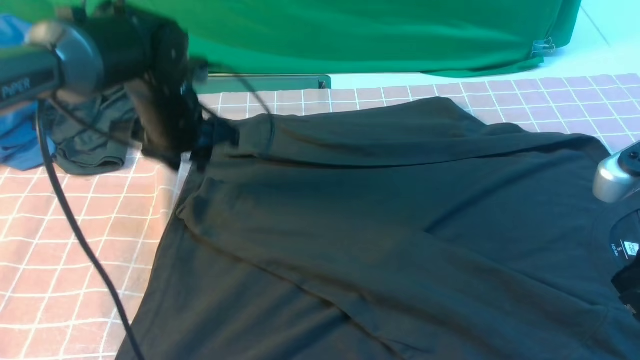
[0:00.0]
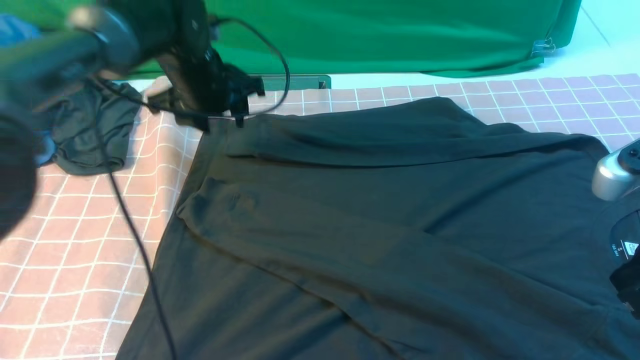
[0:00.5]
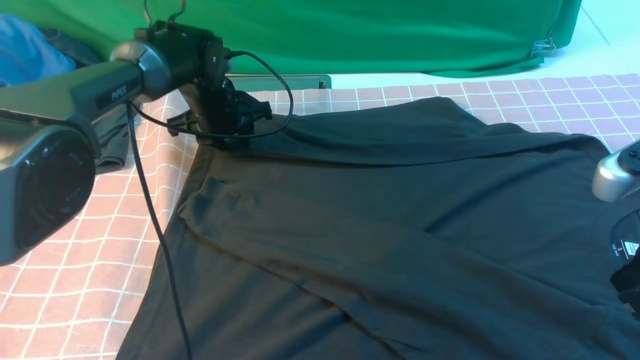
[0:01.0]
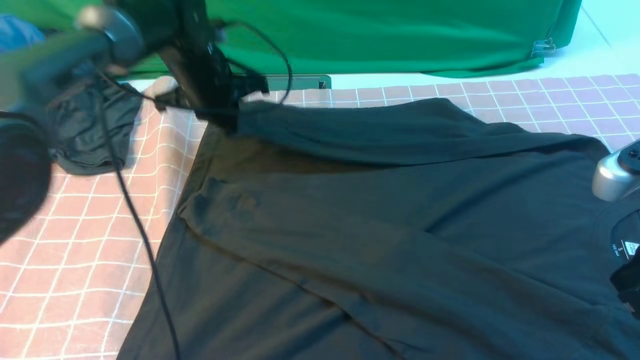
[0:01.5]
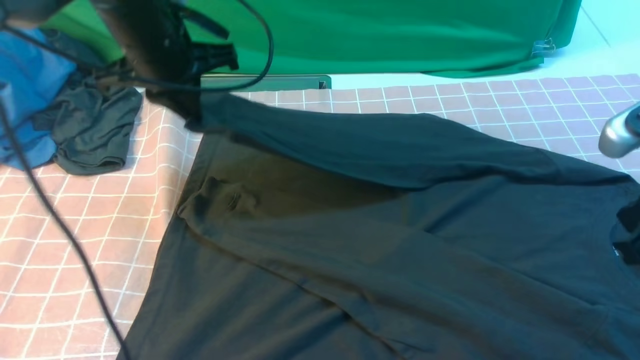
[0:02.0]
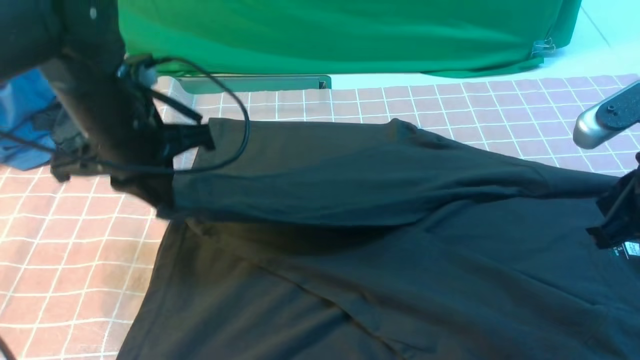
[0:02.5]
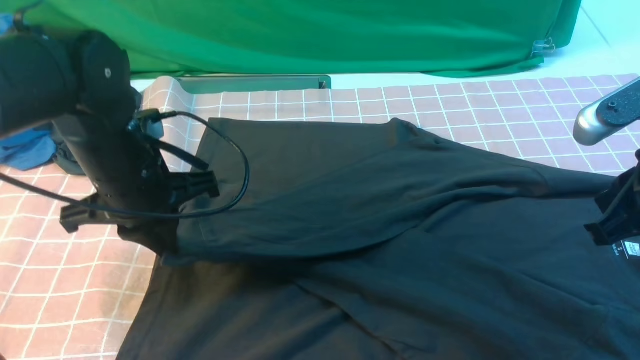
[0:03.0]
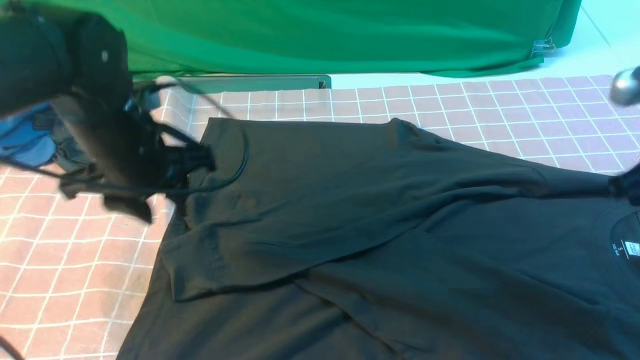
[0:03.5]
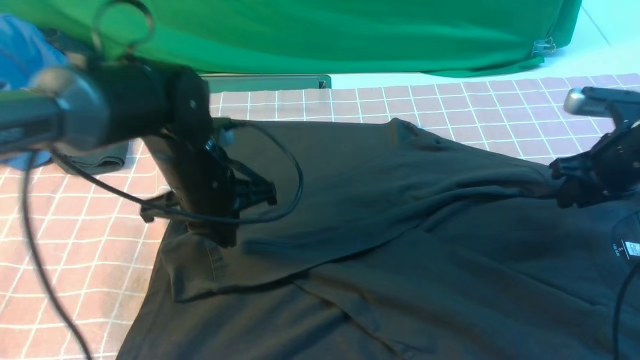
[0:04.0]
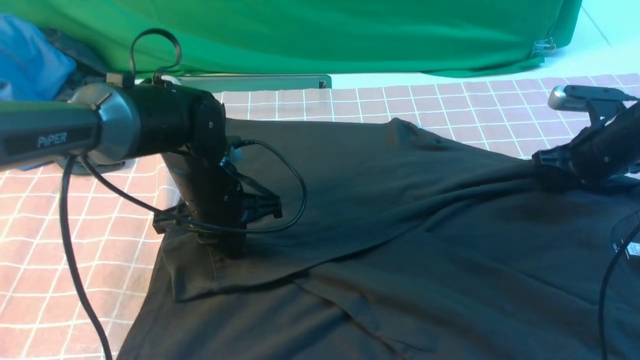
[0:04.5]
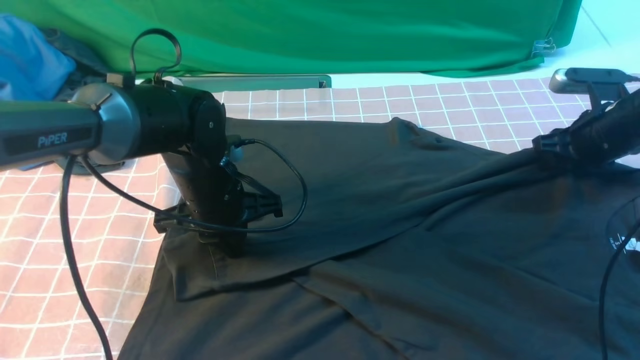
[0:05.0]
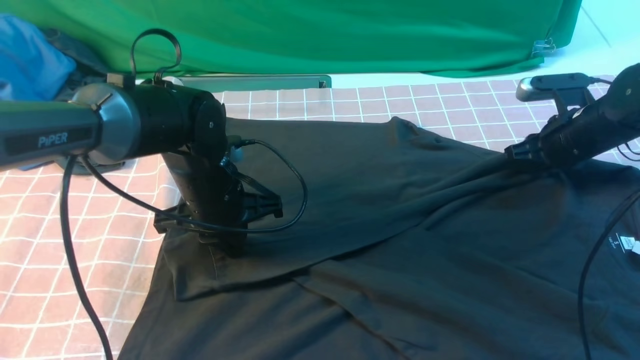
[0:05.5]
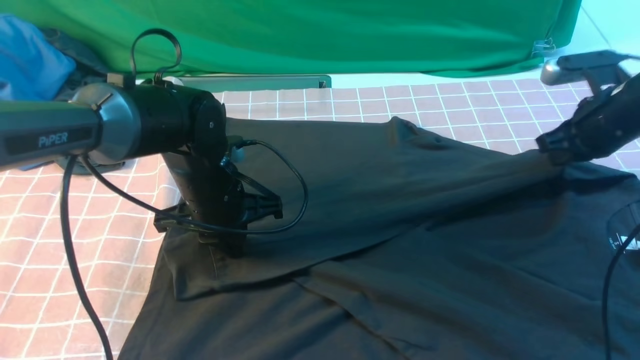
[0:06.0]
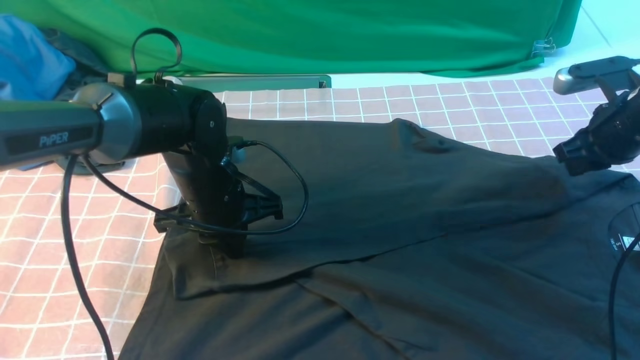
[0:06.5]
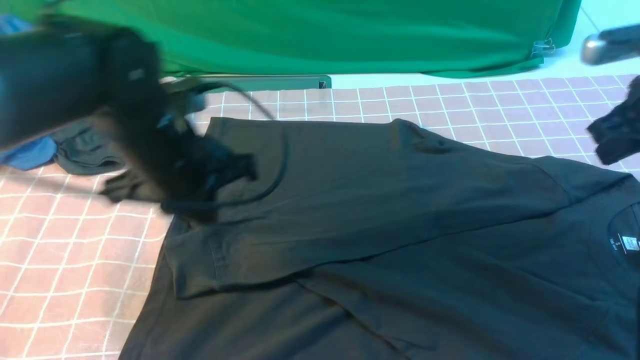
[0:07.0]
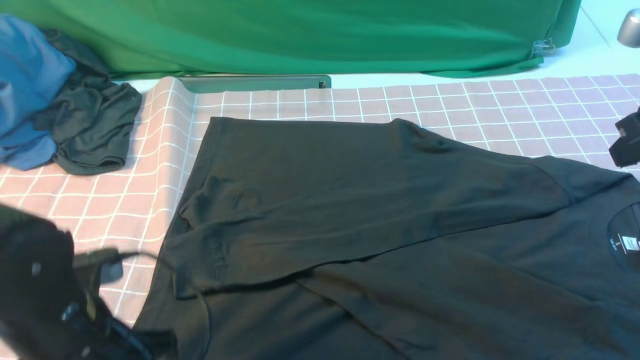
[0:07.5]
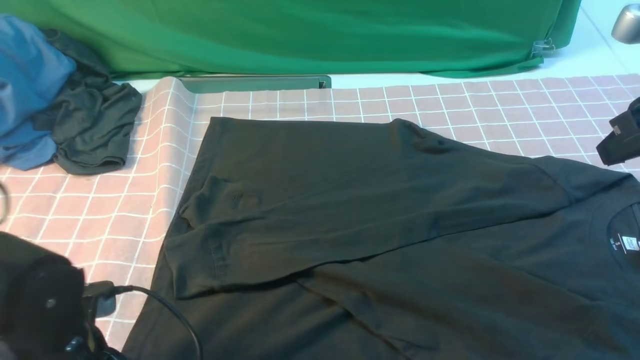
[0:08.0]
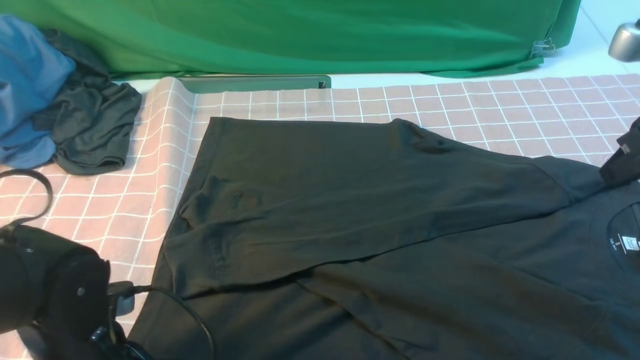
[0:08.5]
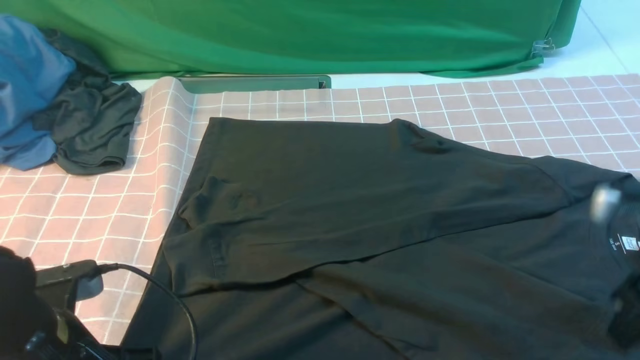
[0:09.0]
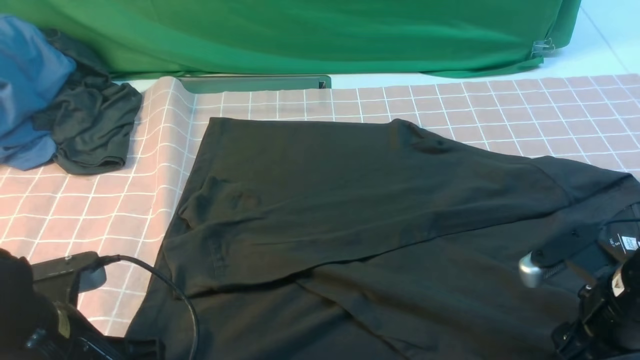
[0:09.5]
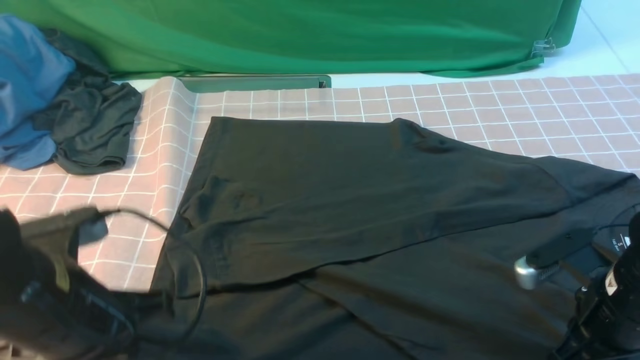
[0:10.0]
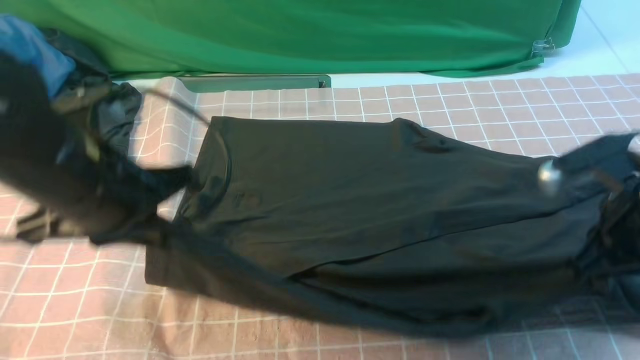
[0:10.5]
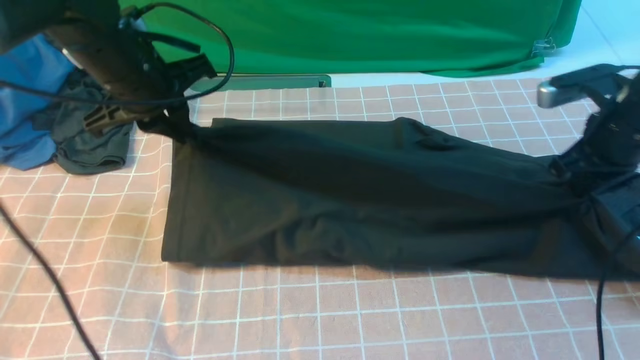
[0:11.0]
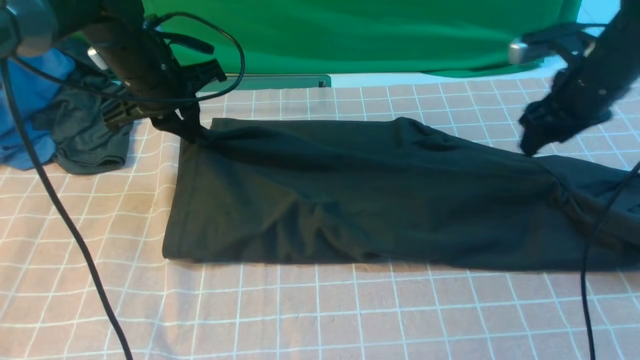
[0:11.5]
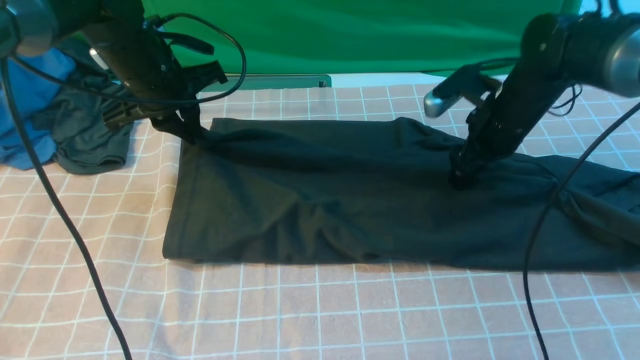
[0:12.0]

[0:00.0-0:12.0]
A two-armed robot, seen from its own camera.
Step, 0:01.5 to 0:03.0: use the left arm to drag and drop the cuff onto the cuff closest to the left arm.
Step, 0:04.0 to 0:10.0: use both arms simultaneously to clamp the lower edge of the clothing fabric.
0:00.0 to 0:02.0: The left gripper shifts roughly 5 cm upward, and closes.
0:02.0 to 0:04.0: The right gripper travels forward and downward by some 20 cm, and opens up, while the left gripper moves downward and backward, about 10 cm, and opens, then closes once more.
0:04.0 to 0:06.0: The right gripper closes up.
0:06.0 to 0:08.0: The left gripper moves backward, some 20 cm, and opens. Meanwhile the right gripper goes approximately 15 cm upward and backward.
0:08.0 to 0:10.0: The left gripper travels upward by roughly 10 cm, and closes its fingers, while the right gripper goes approximately 15 cm downward and backward, and opens and closes again.
0:10.0 to 0:12.0: Both grippers travel together forward, approximately 25 cm. The right gripper opens its fingers.

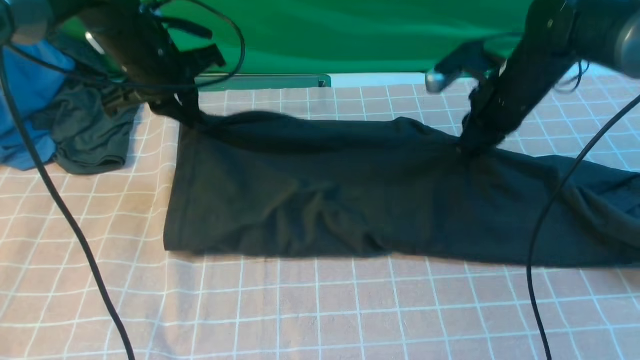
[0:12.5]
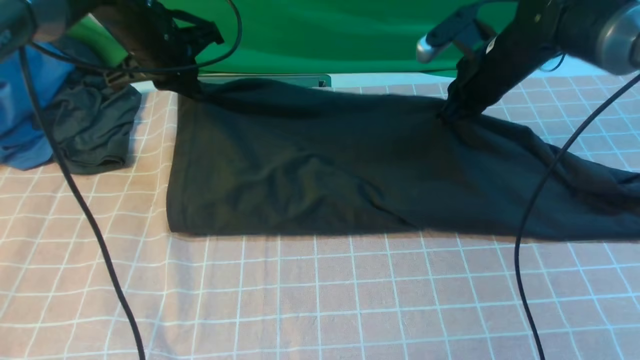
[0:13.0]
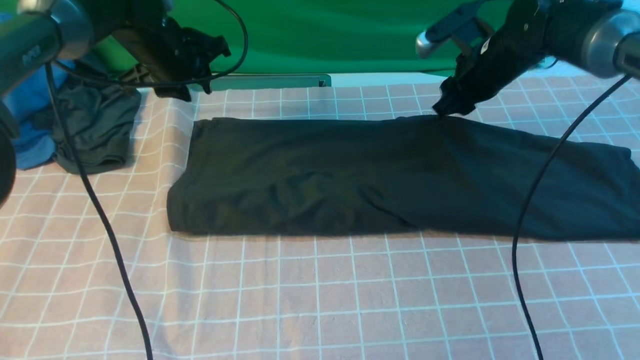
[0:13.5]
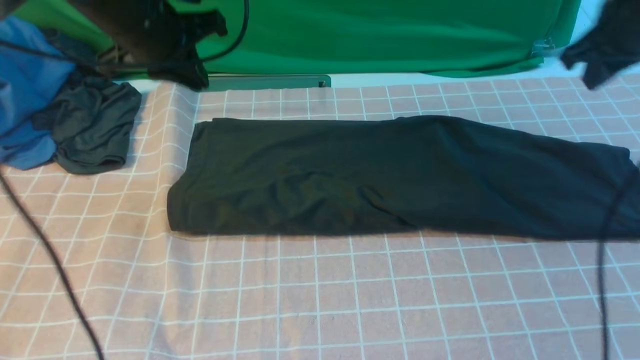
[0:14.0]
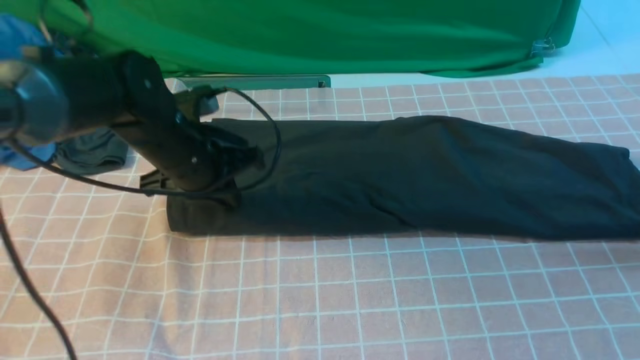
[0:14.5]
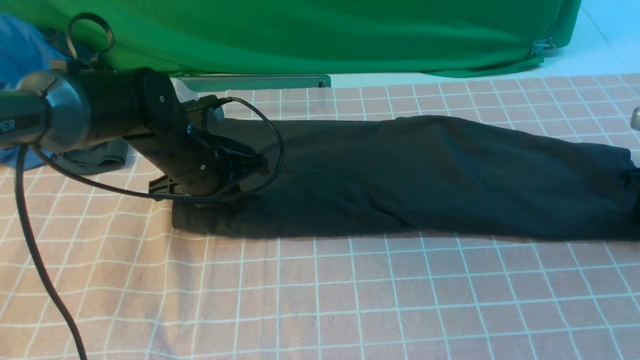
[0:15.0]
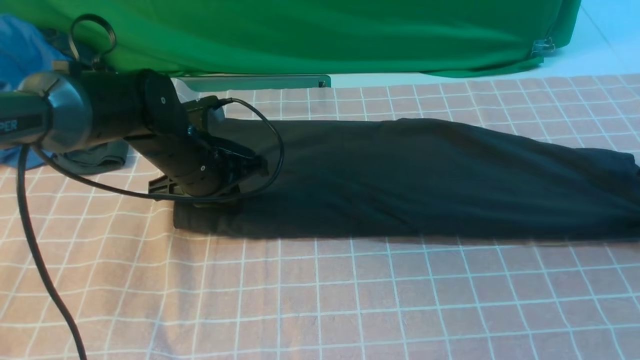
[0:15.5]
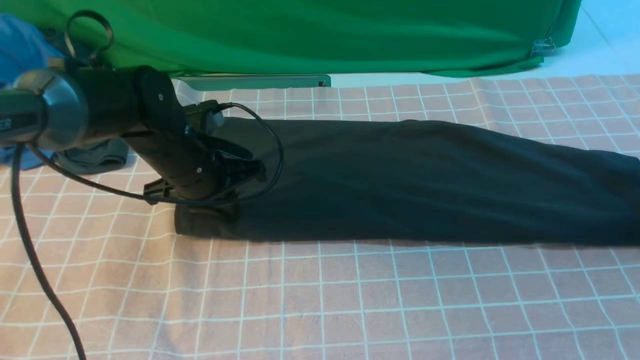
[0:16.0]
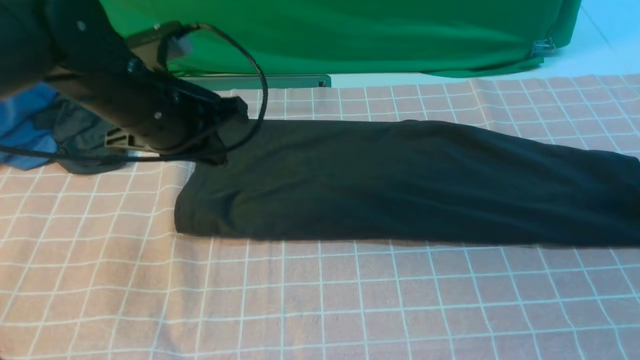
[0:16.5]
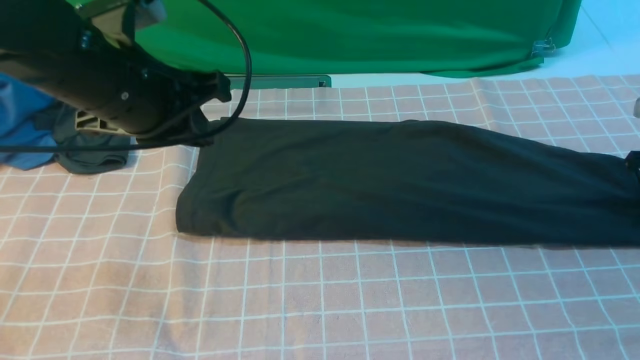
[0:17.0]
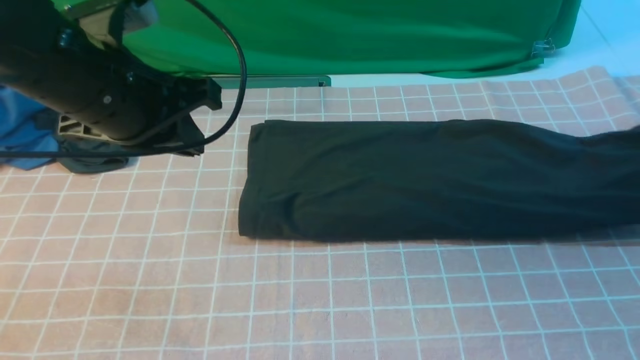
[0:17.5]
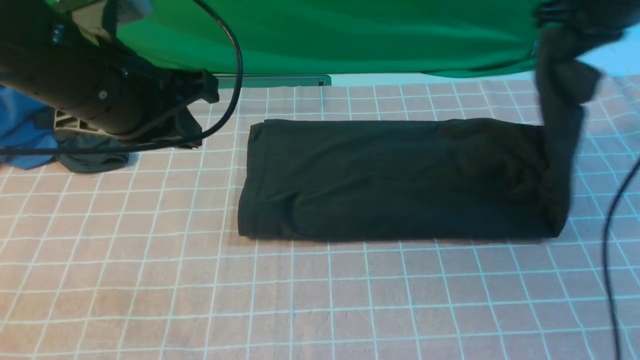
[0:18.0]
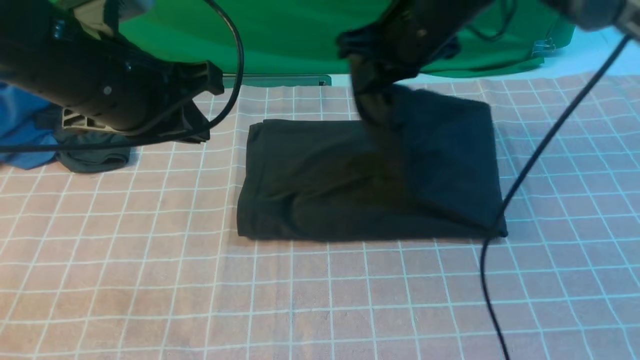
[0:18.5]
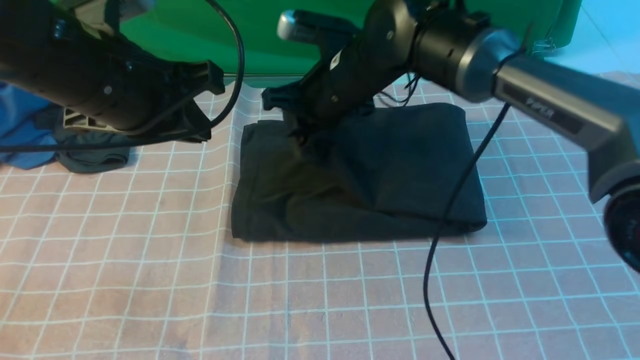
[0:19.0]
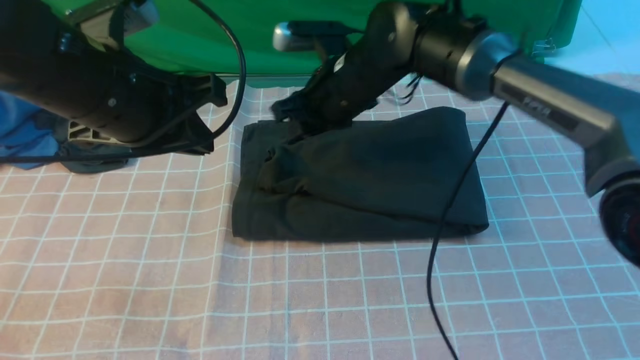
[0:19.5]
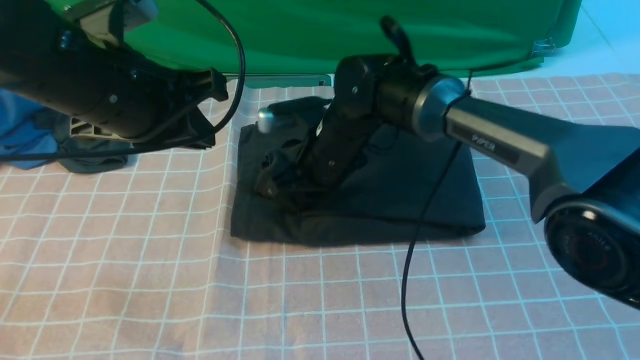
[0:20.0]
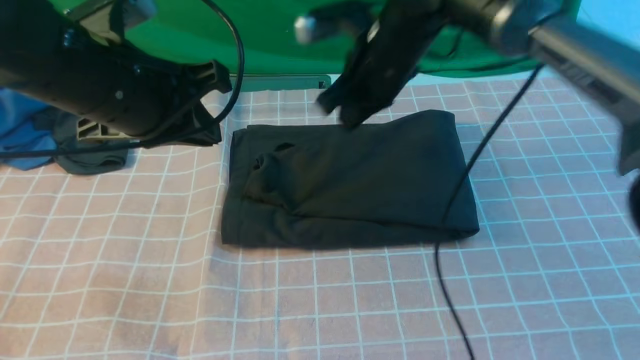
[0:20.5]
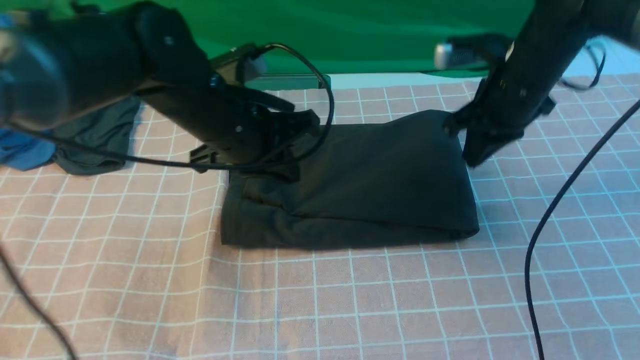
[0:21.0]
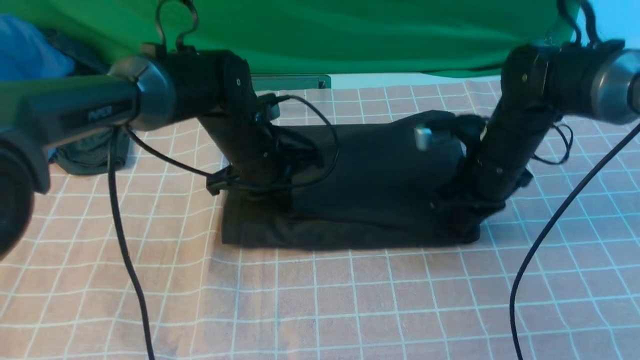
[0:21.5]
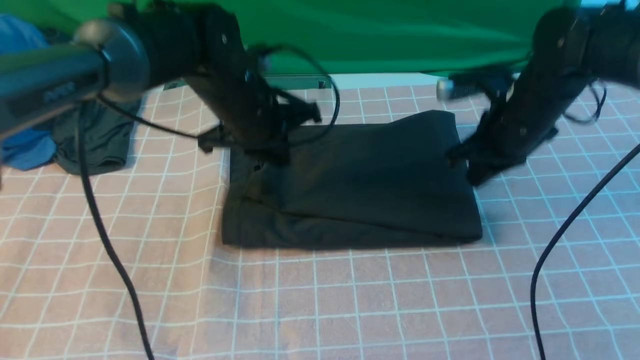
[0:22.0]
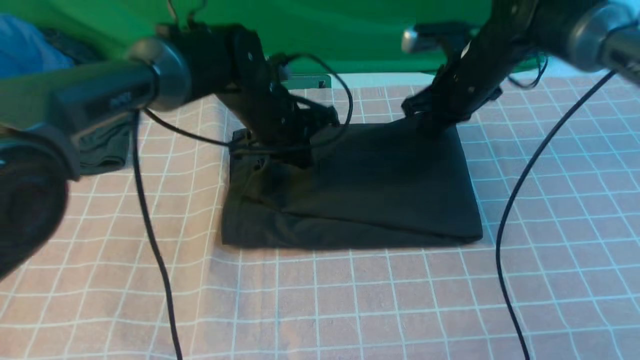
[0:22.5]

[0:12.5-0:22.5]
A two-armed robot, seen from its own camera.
Step, 0:14.0 to 0:17.0: use the right arm to clamp the right edge of the fabric.
Step, 0:17.5 to 0:19.5: use the right arm to drag the right edge of the fabric to the left and folds it over the left edge.
0:12.5 to 0:14.5: The left gripper heads backward and downward, covering roughly 10 cm, and opens, then closes again. The right gripper travels to the right by roughly 20 cm, and opens.
0:14.5 to 0:16.5: The right gripper ends up some 5 cm from where it was, and opens up, while the left gripper moves upward, approximately 10 cm.
0:16.5 to 0:18.5: The left gripper heads upward, covering approximately 5 cm, while the right gripper moves to the left, about 35 cm, and closes its fingers.
0:18.5 to 0:20.5: The right gripper travels downward and back again, approximately 10 cm each way.
0:20.5 to 0:22.5: The right gripper is displaced to the right and downward by some 10 cm, while the left gripper heads forward, downward and to the right, covering about 20 cm.
